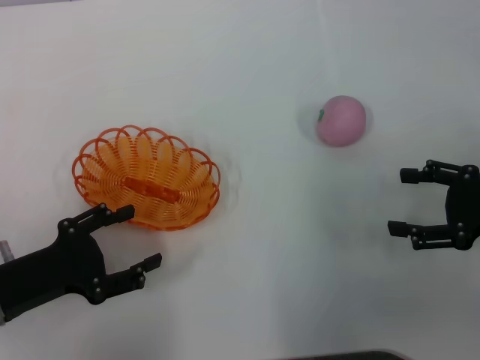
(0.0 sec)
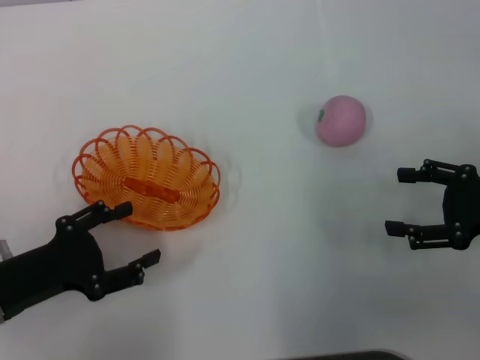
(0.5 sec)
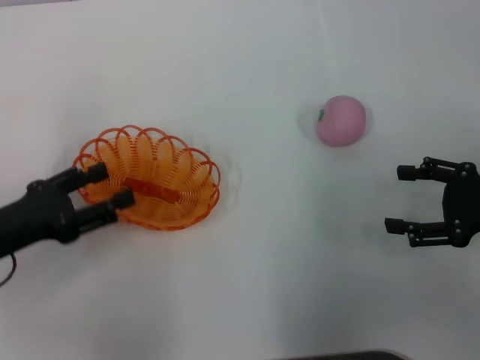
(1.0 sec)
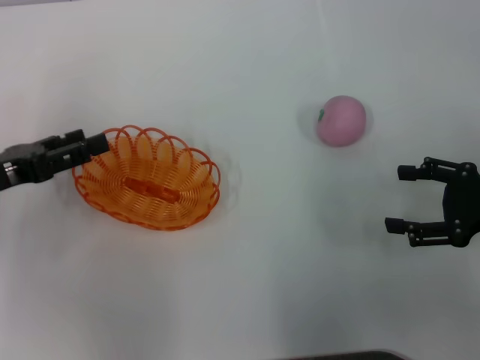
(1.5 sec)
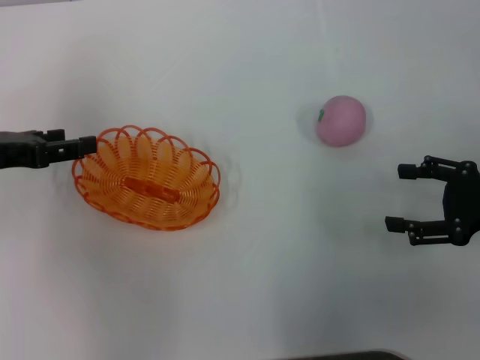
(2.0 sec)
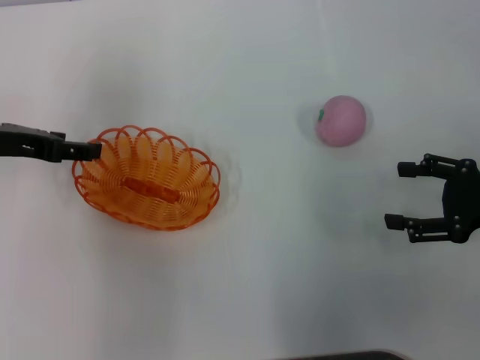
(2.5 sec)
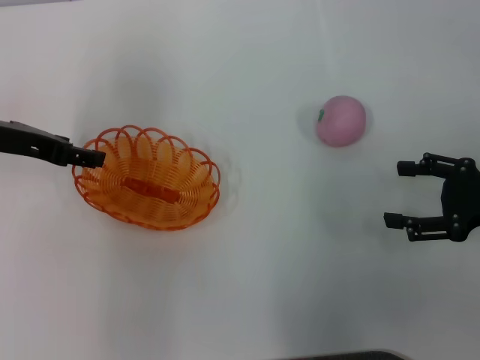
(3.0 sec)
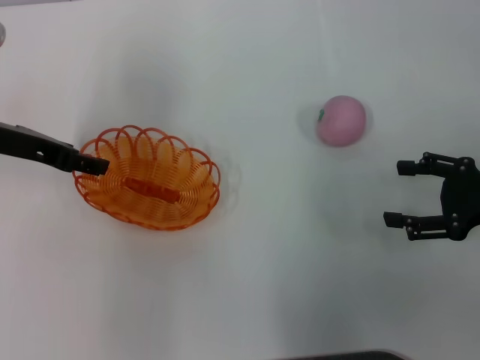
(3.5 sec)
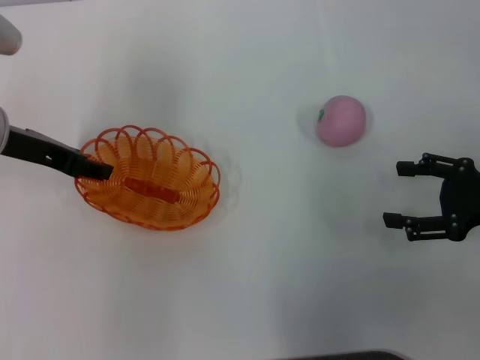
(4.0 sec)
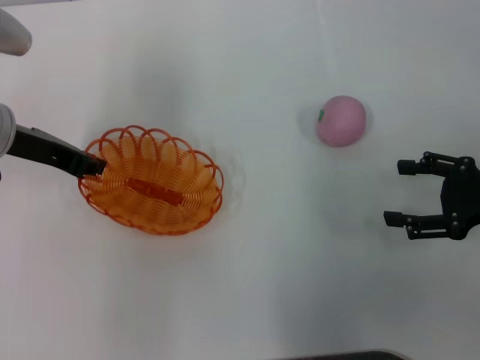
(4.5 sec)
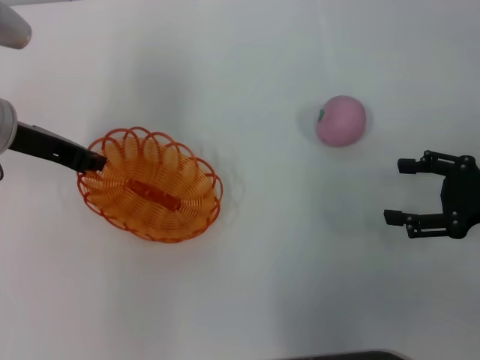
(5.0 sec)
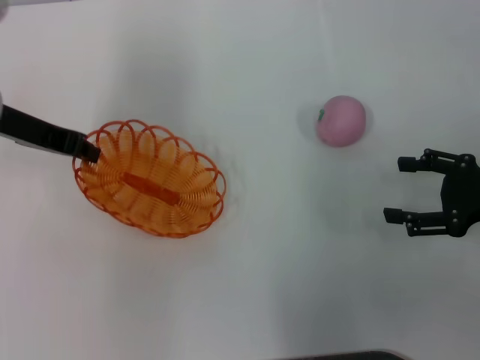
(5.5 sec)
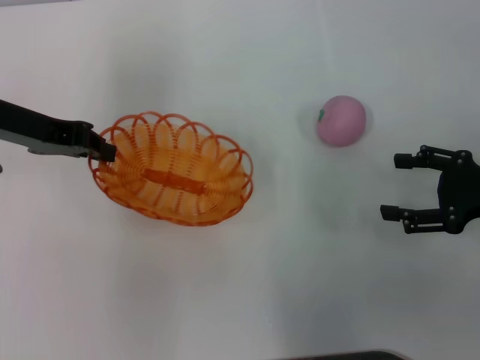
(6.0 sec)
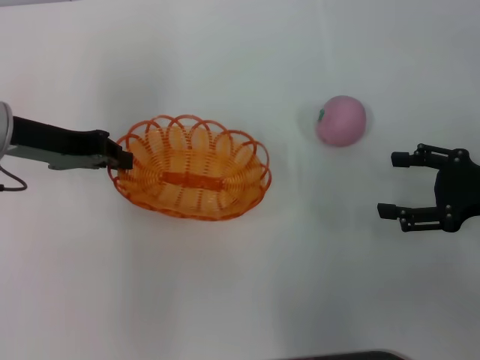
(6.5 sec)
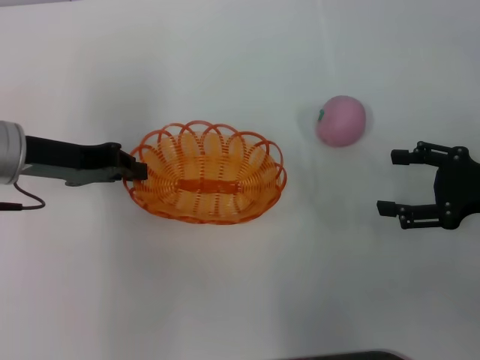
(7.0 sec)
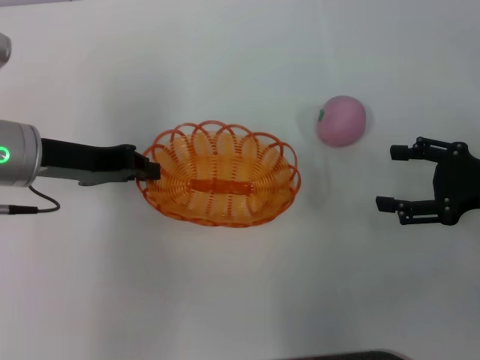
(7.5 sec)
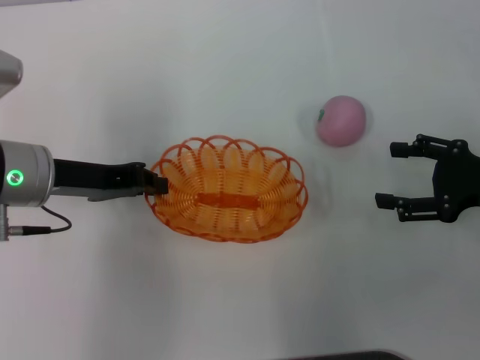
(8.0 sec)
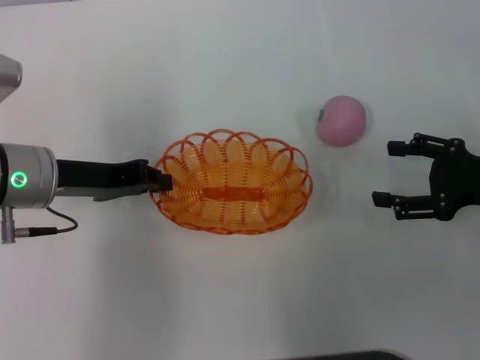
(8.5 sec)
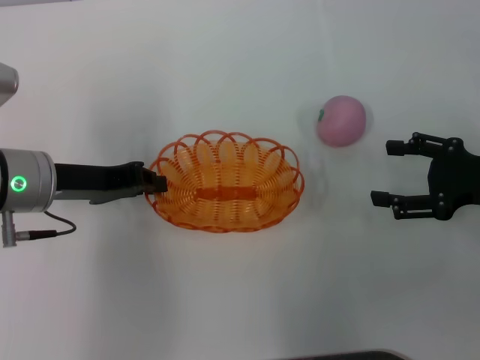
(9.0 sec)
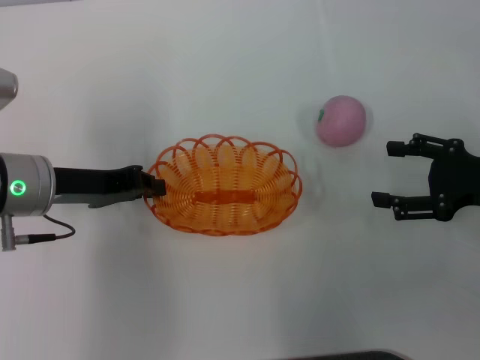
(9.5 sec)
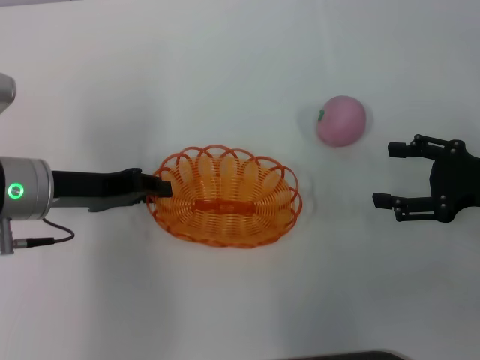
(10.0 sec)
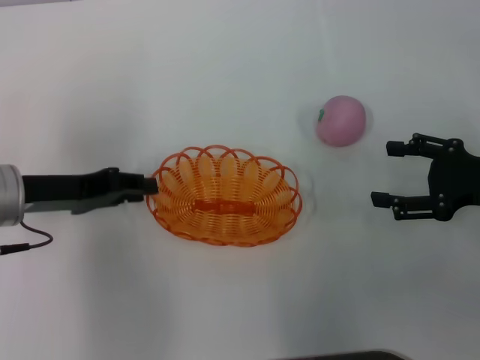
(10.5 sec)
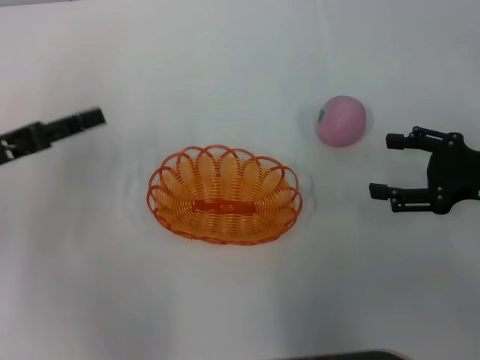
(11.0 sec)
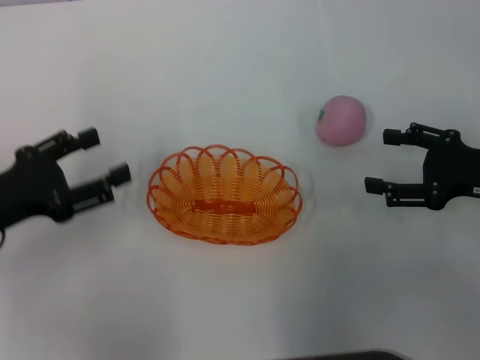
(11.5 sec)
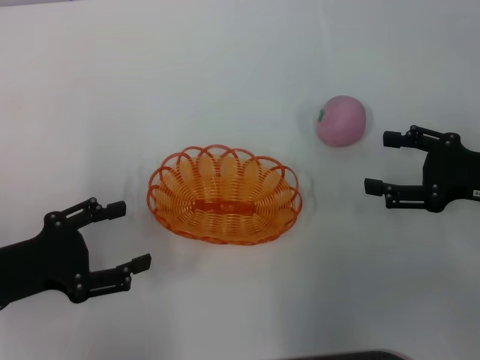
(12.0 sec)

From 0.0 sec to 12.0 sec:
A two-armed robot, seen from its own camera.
Step, from 0.0 sec to 6.0 sec: Pick up the basket with the left gripper.
Step, from 6.5 sec to 11.0 sec: Place the basket in the center of view with the left gripper.
From 0.0 sec to 2.0 sec: The left gripper moves forward and upward, some 15 cm.
From 2.0 sec to 4.0 sec: The left gripper moves to the right, approximately 5 cm.
From 4.0 sec to 6.0 sec: The left gripper closes up.
From 6.0 sec to 8.0 sec: The left gripper heads backward and downward, covering some 5 cm.
From 8.0 sec to 10.0 sec: There are only small adjustments of the grippers.
From 10.0 sec to 12.0 sec: The left gripper travels backward and to the left by approximately 10 cm, and opens.

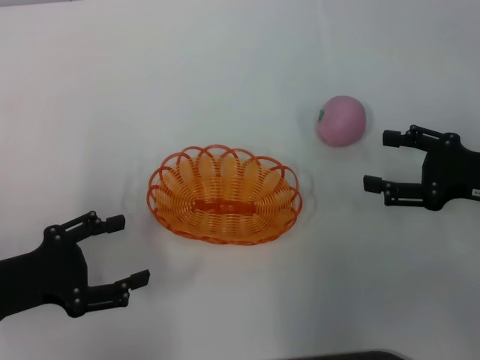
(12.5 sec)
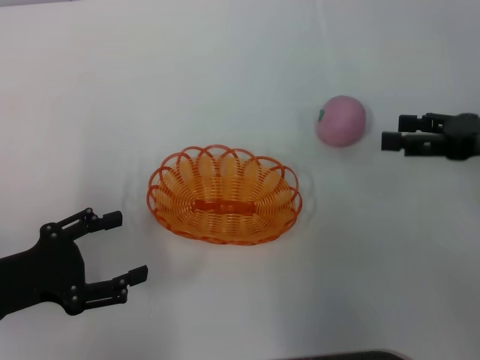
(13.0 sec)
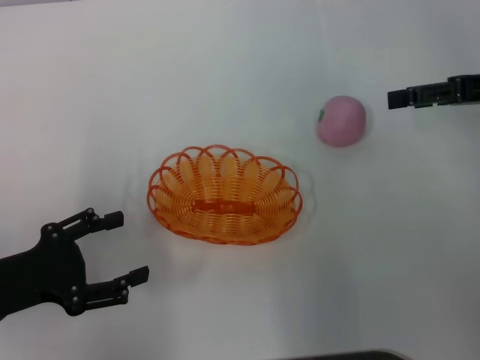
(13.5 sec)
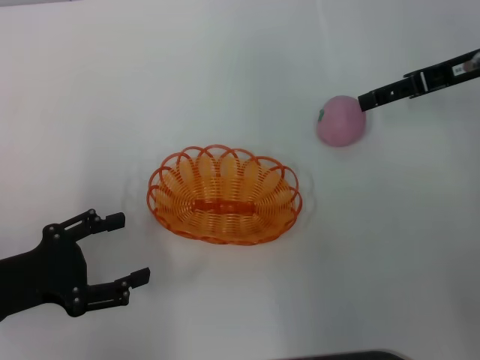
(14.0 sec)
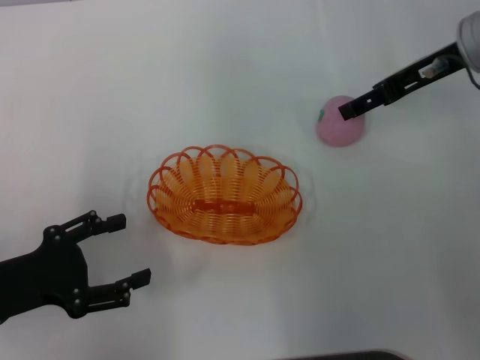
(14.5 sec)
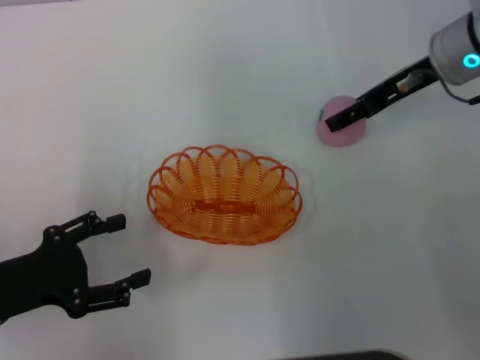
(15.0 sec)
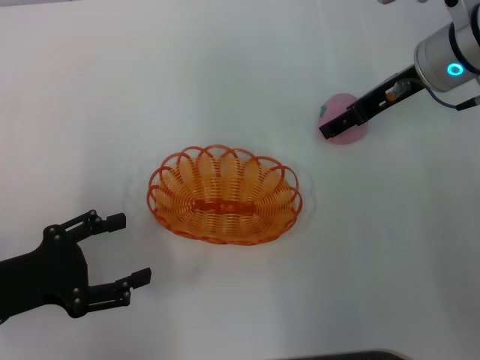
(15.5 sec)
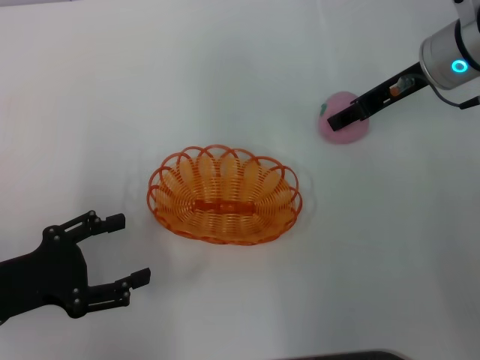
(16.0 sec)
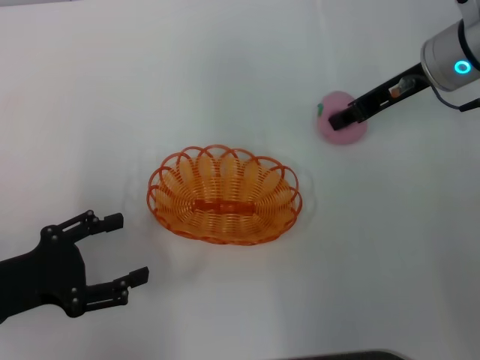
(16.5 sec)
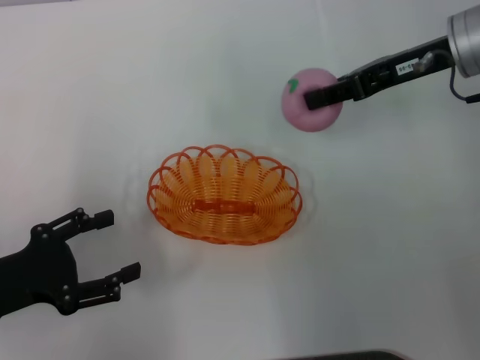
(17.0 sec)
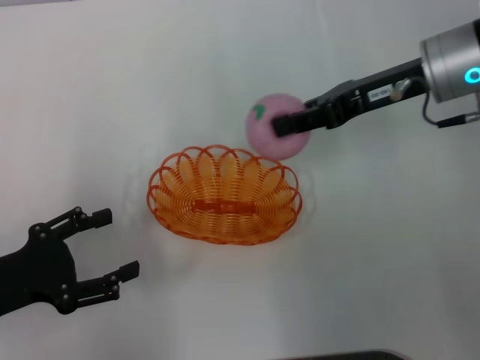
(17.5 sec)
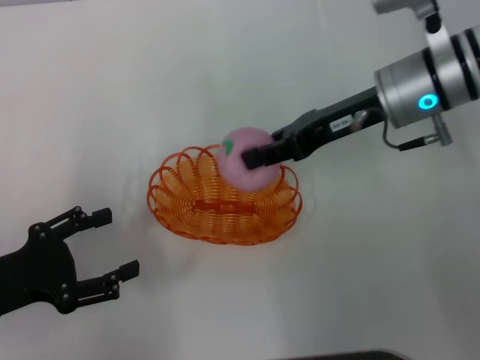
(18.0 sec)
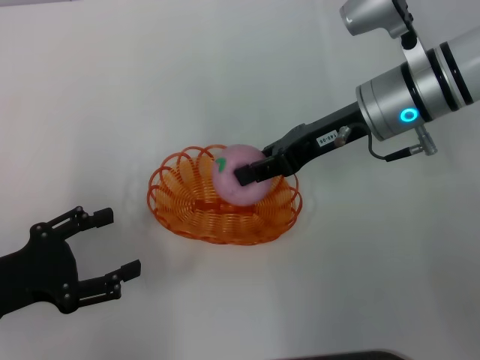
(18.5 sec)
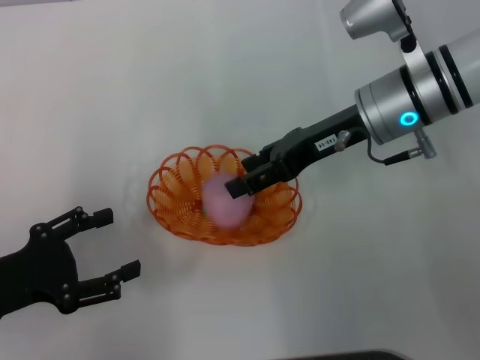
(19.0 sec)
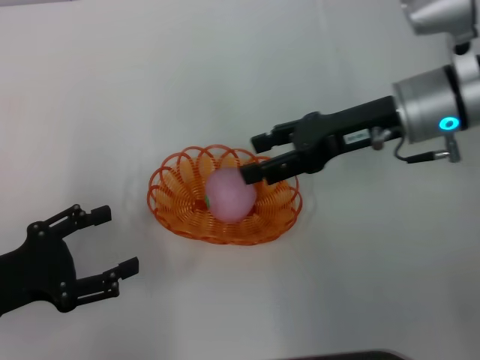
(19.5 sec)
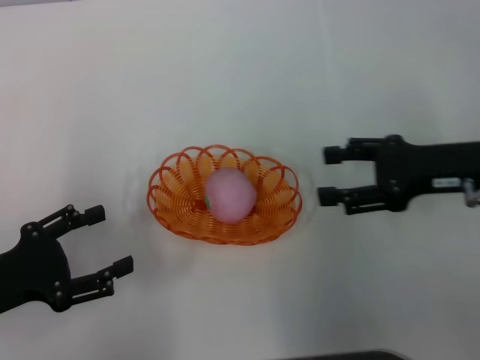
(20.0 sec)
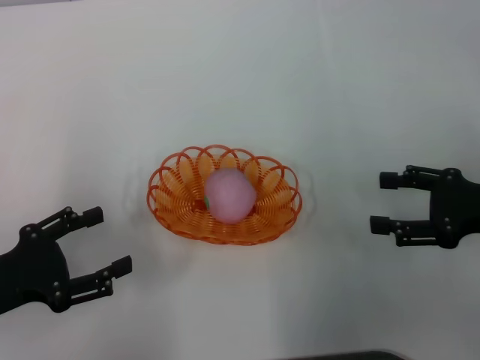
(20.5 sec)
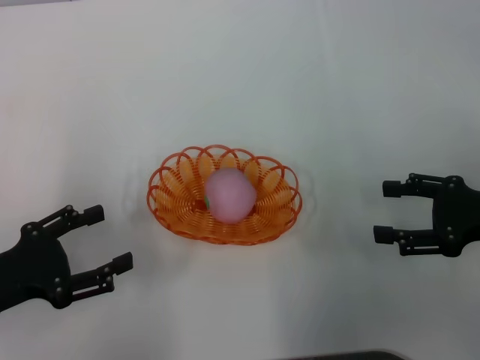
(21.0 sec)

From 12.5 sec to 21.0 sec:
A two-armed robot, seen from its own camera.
Step, from 12.5 sec to 17.0 sec: Pick up the peach with the right gripper.
Step, from 17.5 sec to 19.5 sec: Place the peach into the basket with the right gripper.
From 12.5 sec to 14.5 sec: The right gripper heads forward, upward and to the left, covering roughly 20 cm.
From 14.5 sec to 16.5 sec: The right gripper closes its fingers.
From 16.5 sec to 19.0 sec: The right gripper travels to the left by about 5 cm.
From 19.0 sec to 21.0 sec: The right gripper is displaced to the right and backward by roughly 20 cm, and opens its fingers.
